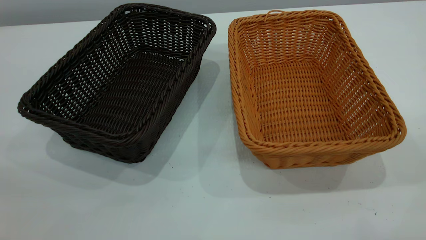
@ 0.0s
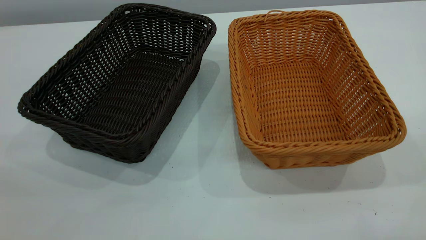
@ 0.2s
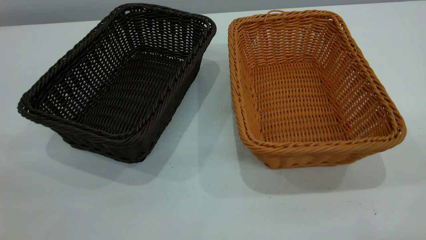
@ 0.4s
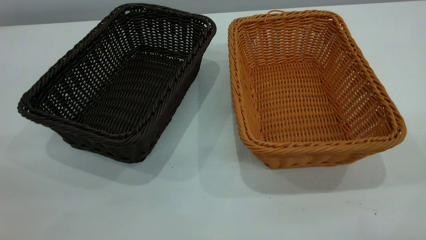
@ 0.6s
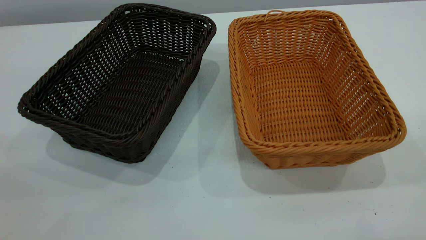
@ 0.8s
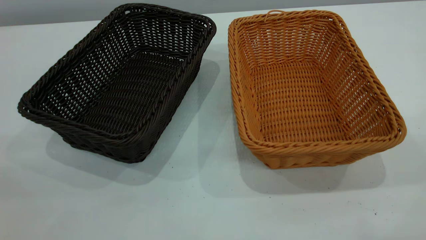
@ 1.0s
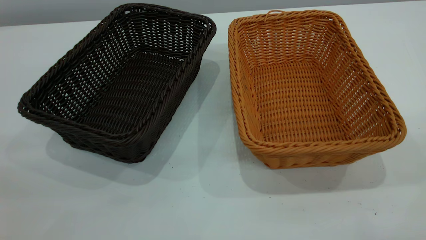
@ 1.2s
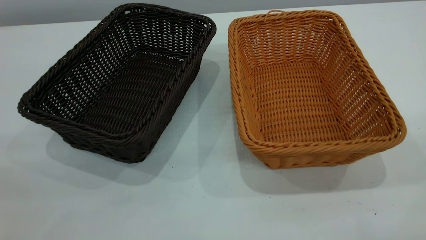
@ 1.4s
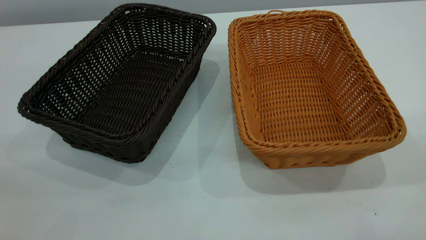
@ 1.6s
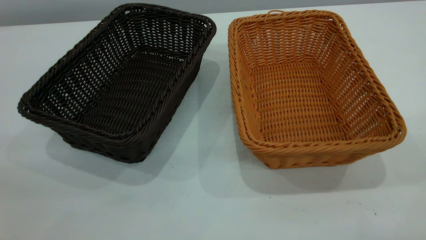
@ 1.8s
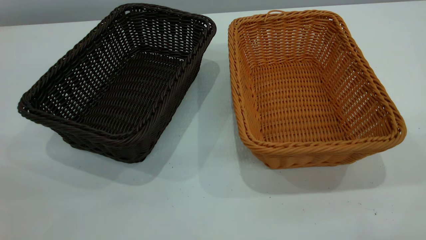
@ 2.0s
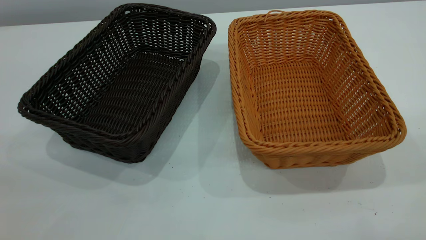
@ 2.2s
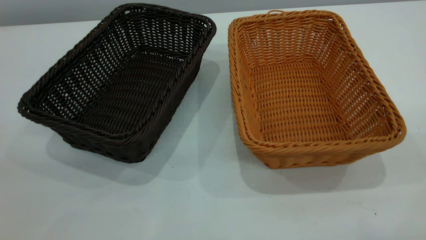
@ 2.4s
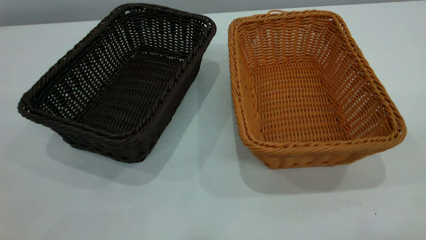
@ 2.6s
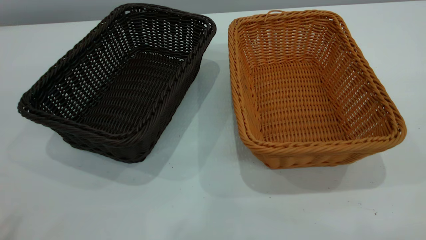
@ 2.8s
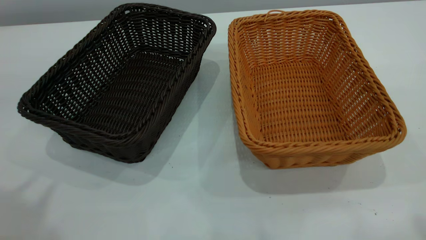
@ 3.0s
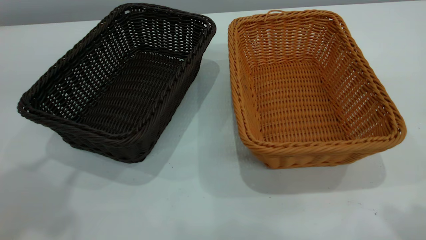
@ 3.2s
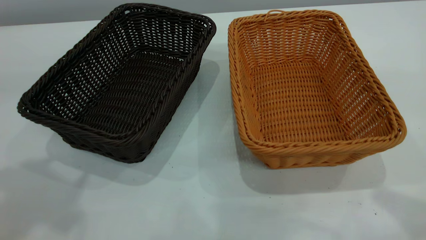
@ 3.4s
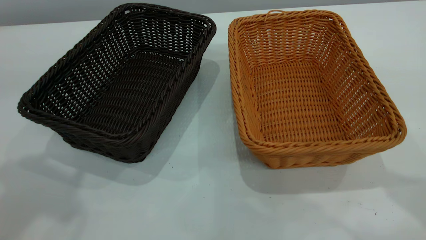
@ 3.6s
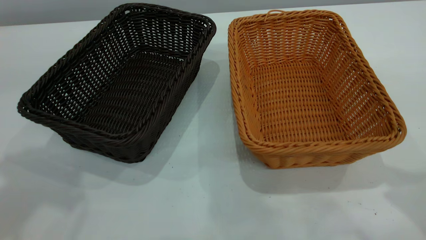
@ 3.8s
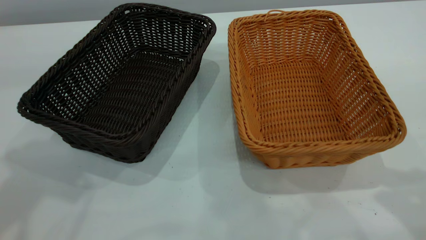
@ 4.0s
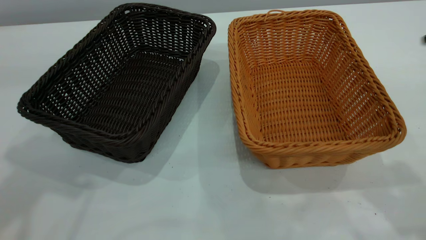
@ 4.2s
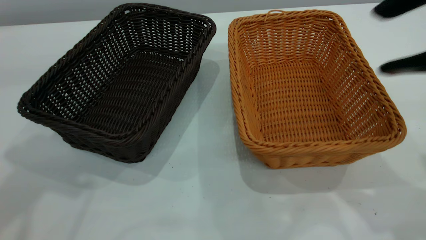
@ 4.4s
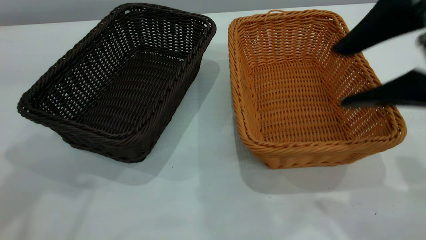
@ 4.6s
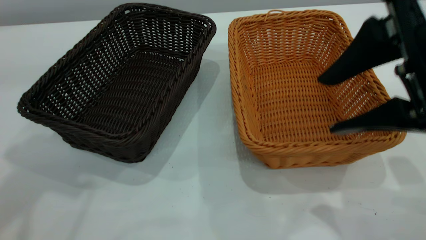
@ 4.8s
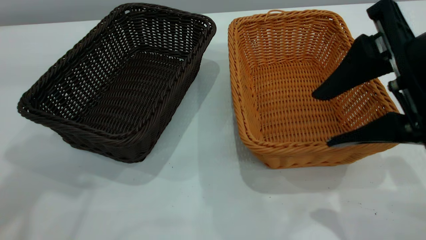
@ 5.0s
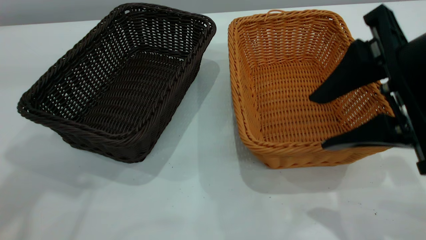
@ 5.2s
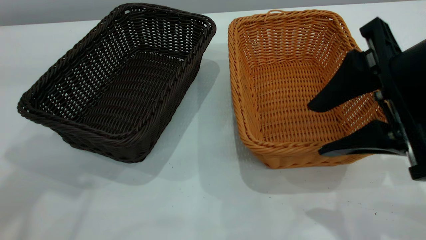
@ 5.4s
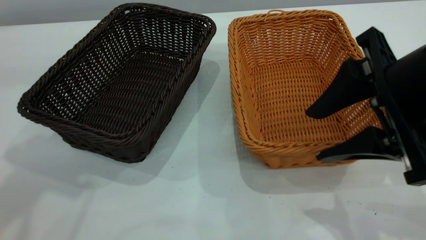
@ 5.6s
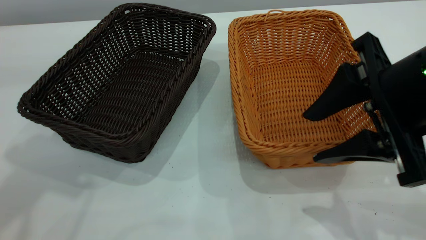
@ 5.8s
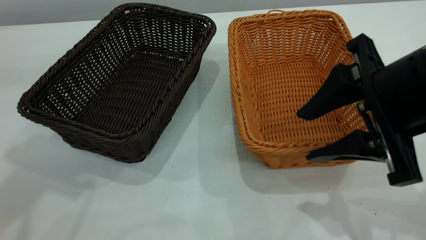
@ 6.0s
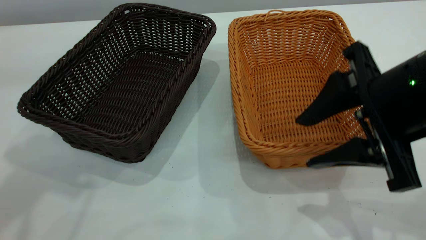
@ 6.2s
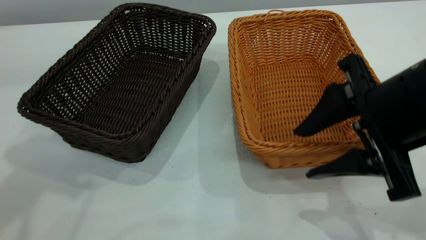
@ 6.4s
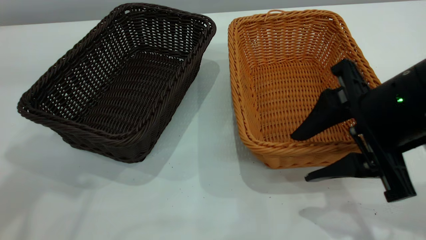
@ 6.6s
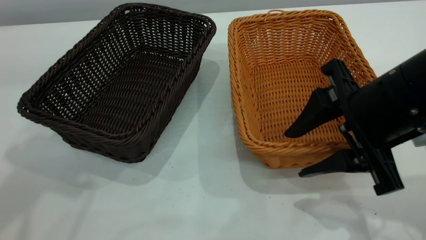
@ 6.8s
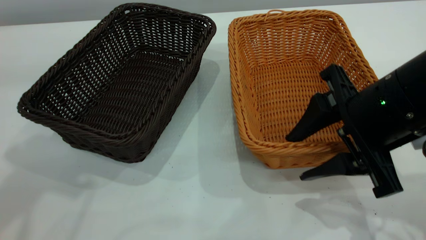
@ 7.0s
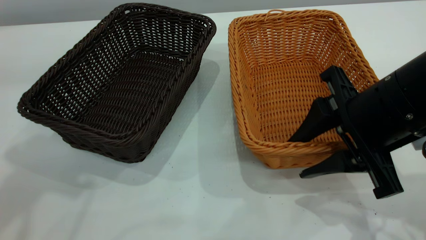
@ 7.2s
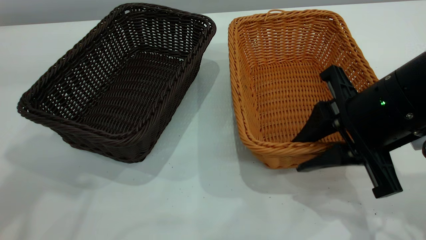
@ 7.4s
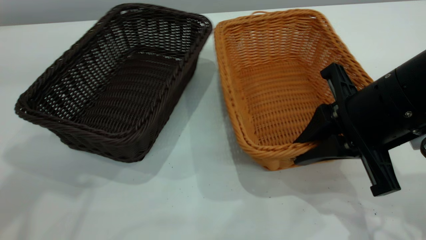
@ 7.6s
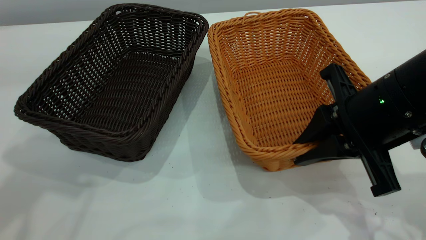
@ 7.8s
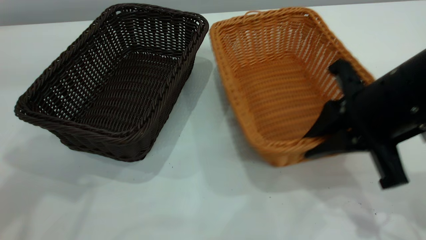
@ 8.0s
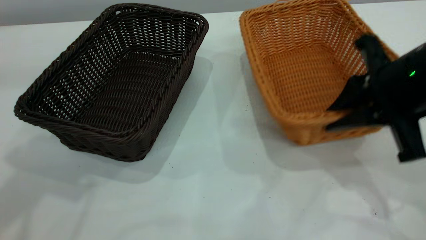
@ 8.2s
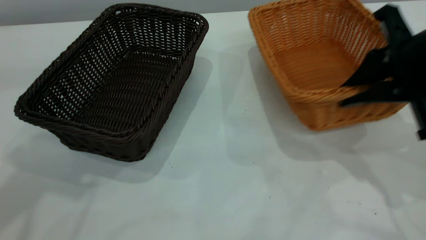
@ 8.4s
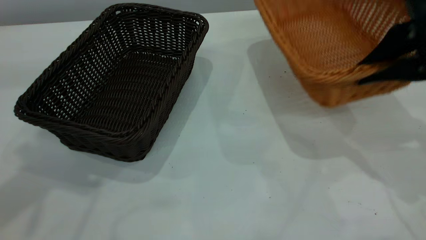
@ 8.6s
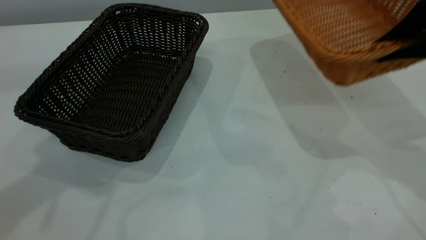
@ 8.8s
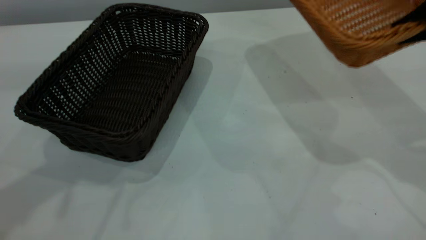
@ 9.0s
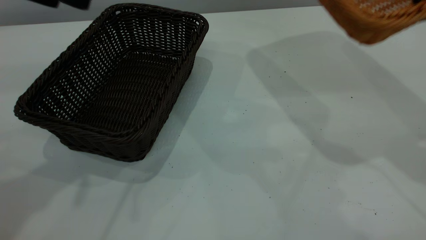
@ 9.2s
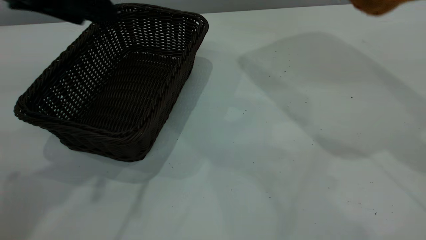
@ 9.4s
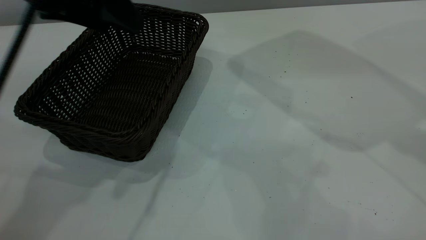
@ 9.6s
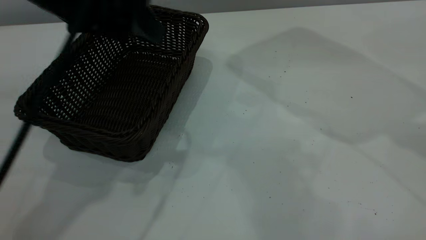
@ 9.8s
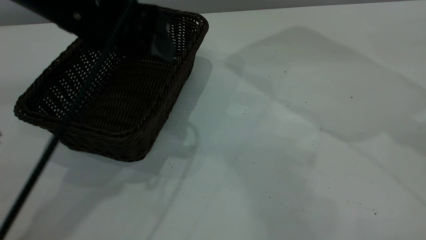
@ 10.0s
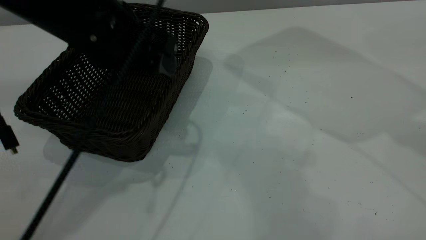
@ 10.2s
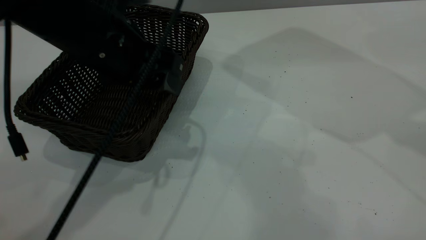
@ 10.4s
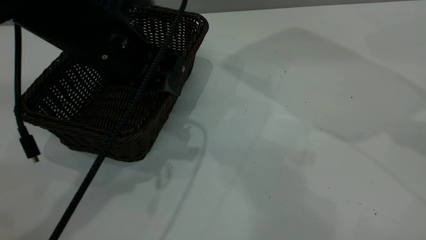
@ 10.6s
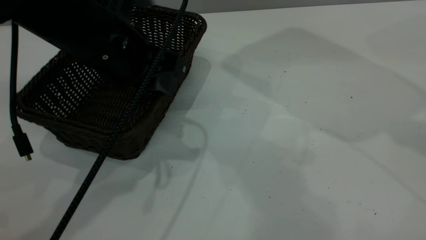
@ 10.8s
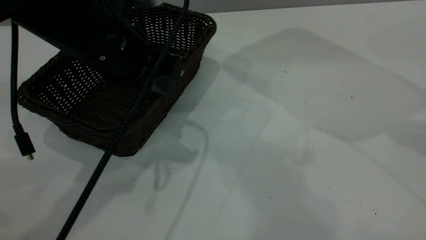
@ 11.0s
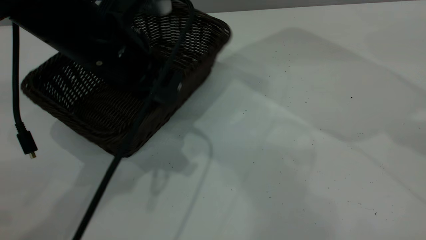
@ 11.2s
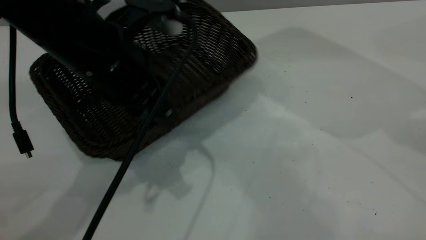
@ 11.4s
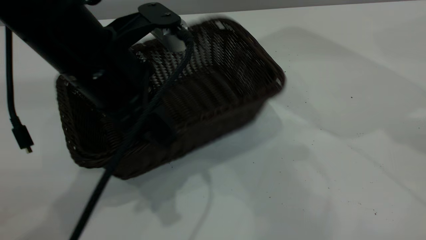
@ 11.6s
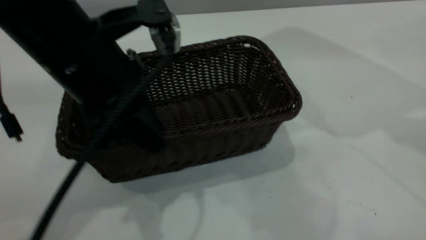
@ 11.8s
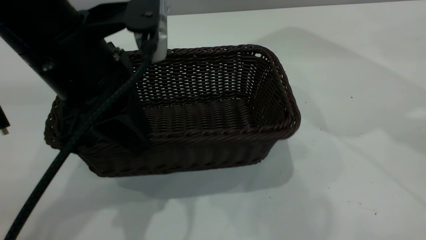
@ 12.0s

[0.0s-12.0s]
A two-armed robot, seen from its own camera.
Task of the whole recording: the left gripper grasp the black basket and place it in the center of the table, the right gripper grasp the brown basket and place it inside the black one.
Step, 0.0s to 8.4s: Pick up the light basket with the right gripper.
0.0s to 1.6s: The two grippers keep their place.
3.0s to 4.4s: The right gripper shifts about 15 cm downward and forward.
4.4s to 6.0s: The right gripper goes roughly 10 cm downward.
6.0s to 7.6s: The right gripper closes.
7.6s to 9.0s: The right gripper moves upward and to the right, roughly 15 cm. The left gripper heads downward, covering approximately 5 cm.
9.0s to 10.4s: The left gripper goes about 15 cm downward and to the right. The right gripper is displaced upward by some 10 cm.
10.4s to 12.0s: The left gripper goes approximately 5 cm backward, and closes up.

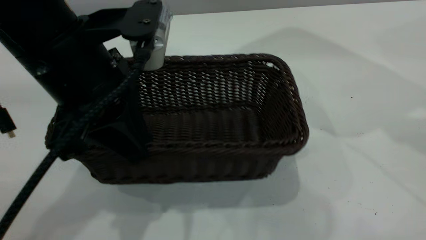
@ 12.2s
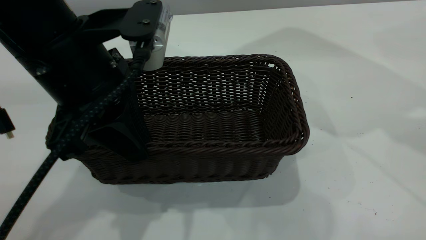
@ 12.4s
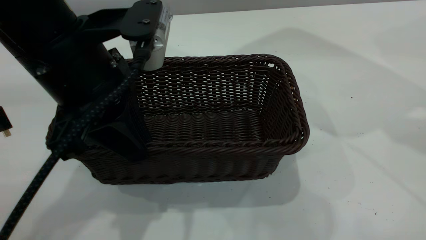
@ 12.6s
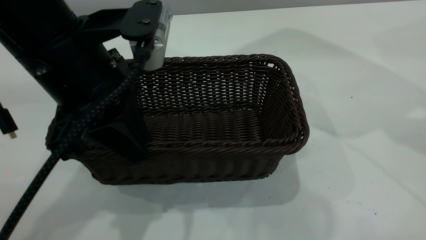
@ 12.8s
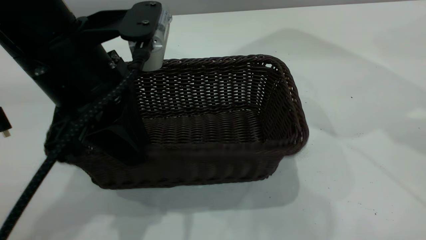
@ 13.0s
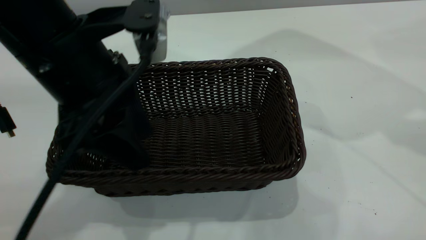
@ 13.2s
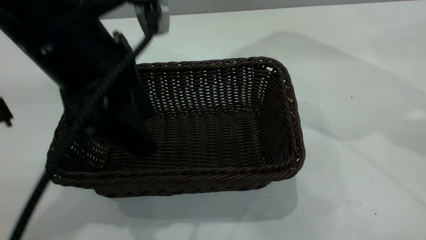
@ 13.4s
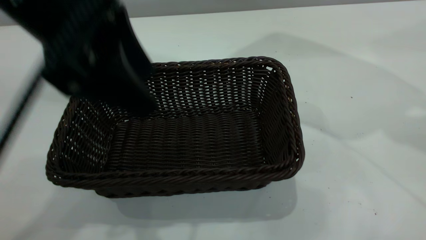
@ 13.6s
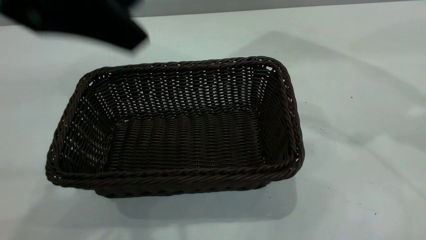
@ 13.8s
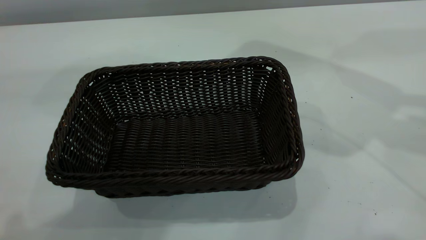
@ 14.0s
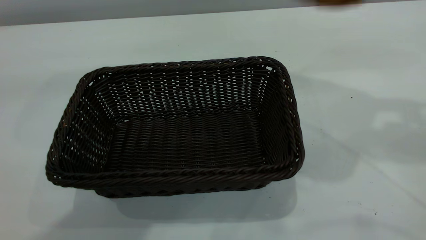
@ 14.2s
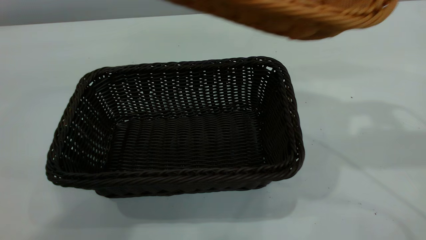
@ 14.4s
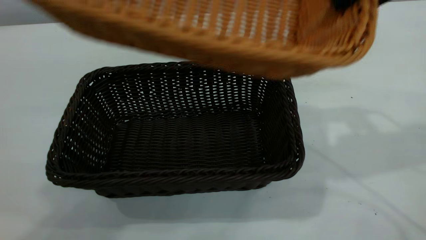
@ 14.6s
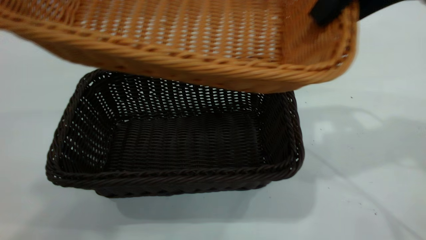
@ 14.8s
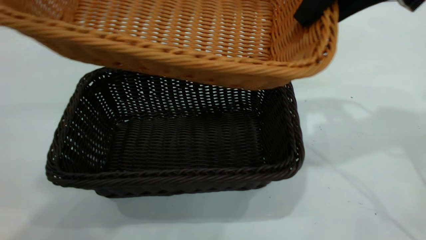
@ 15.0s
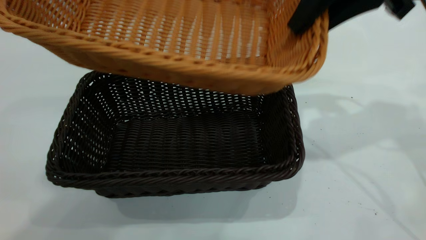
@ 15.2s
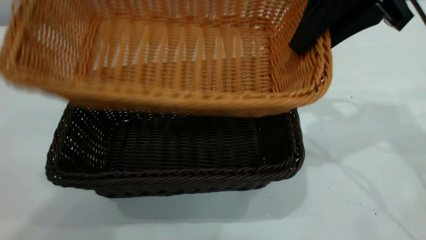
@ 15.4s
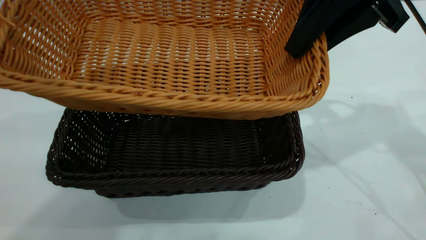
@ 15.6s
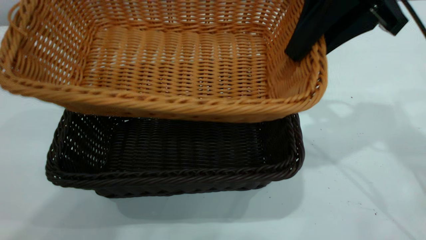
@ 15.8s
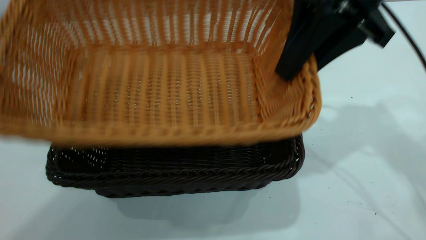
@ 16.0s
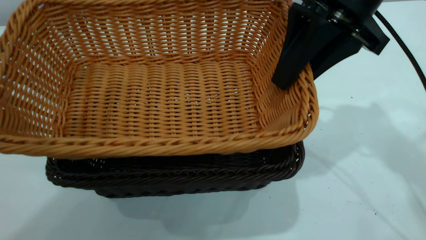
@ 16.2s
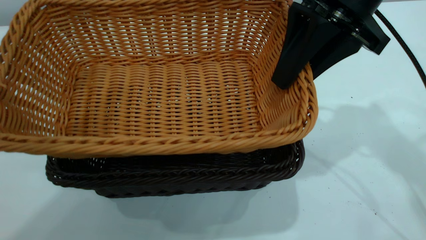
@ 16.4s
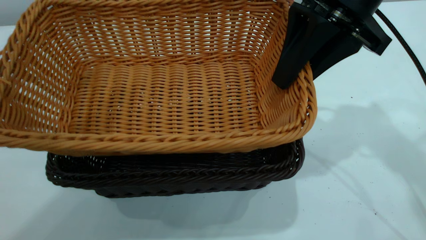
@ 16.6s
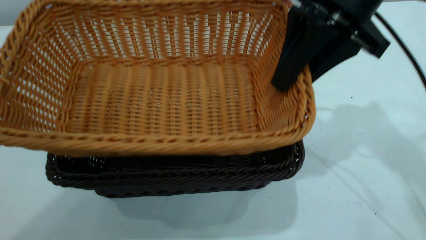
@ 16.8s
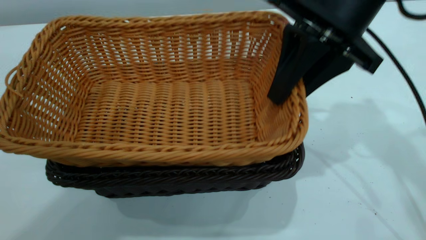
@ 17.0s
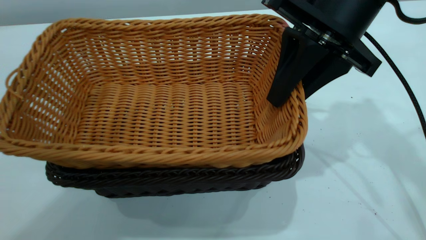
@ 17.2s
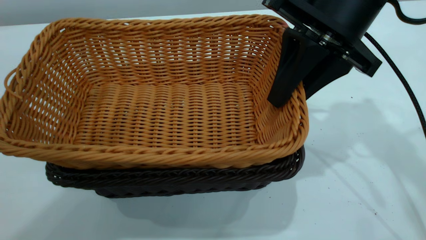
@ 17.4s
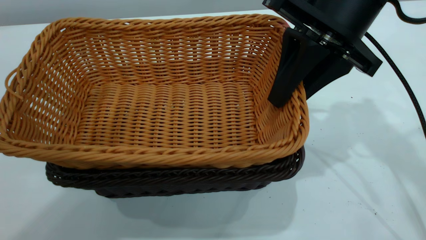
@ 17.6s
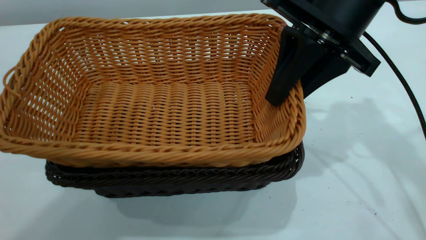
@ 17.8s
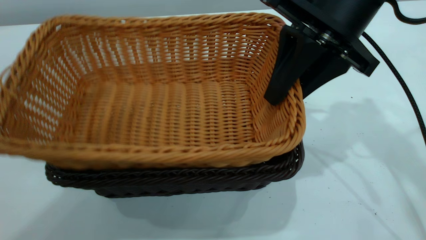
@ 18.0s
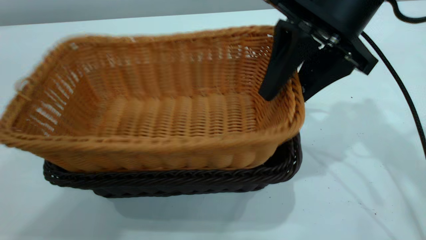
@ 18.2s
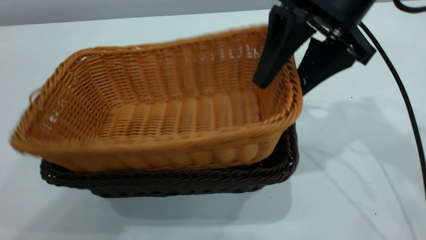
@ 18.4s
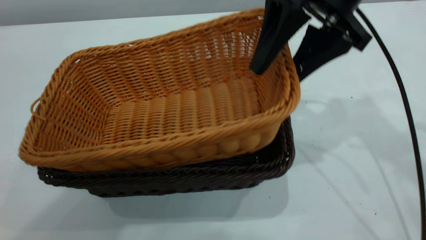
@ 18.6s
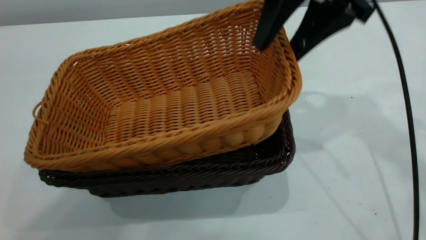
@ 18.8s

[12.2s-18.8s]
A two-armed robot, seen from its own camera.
Task of the whole recording: the left gripper grasp the black basket and place it in the center of the table, the right gripper grasp the brown basket and place it inside the black one.
12.2s to 13.8s: The left gripper travels upward by some 15 cm, and opens.
13.8s to 15.4s: The left gripper travels upward and to the left by some 15 cm, while the right gripper moves to the left and downward, roughly 15 cm.
15.4s to 17.2s: The right gripper moves approximately 5 cm.
17.2s to 18.8s: The right gripper shifts roughly 5 cm upward, and opens up.
